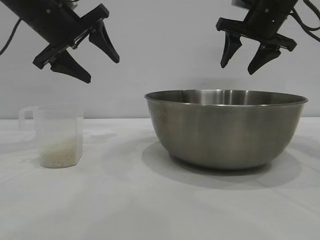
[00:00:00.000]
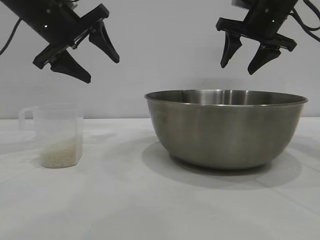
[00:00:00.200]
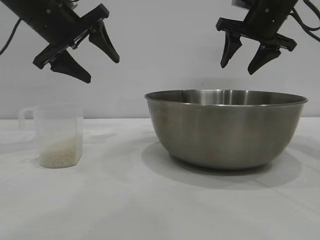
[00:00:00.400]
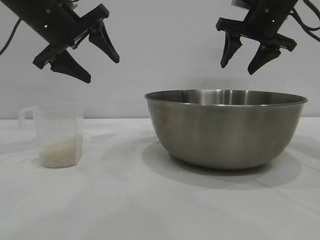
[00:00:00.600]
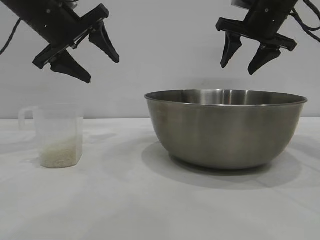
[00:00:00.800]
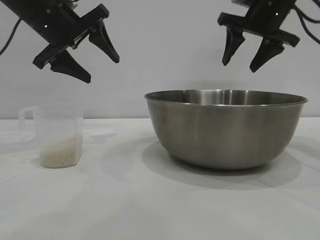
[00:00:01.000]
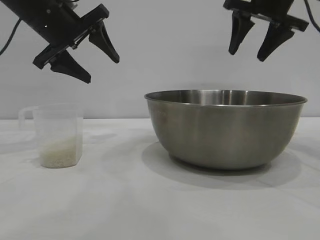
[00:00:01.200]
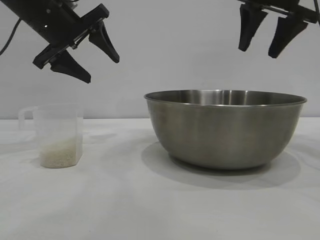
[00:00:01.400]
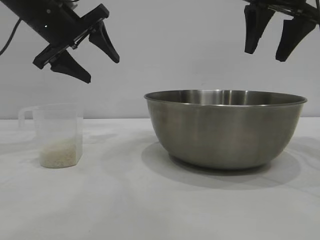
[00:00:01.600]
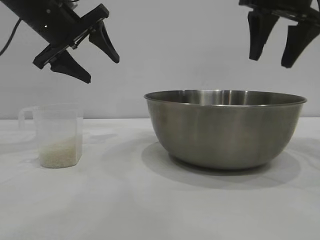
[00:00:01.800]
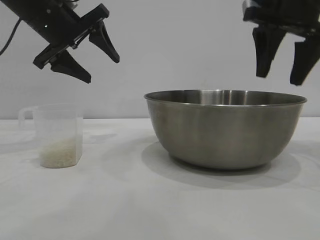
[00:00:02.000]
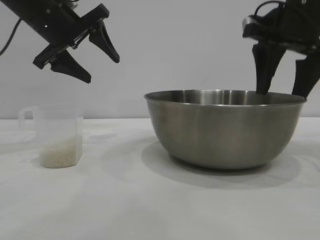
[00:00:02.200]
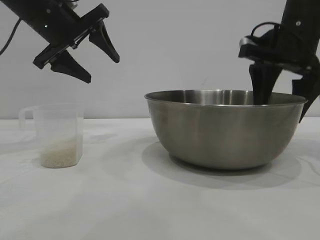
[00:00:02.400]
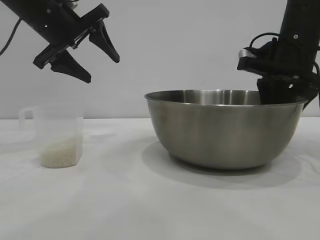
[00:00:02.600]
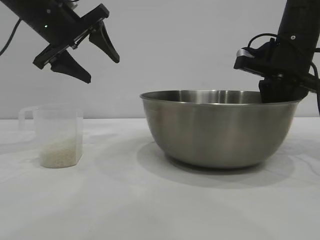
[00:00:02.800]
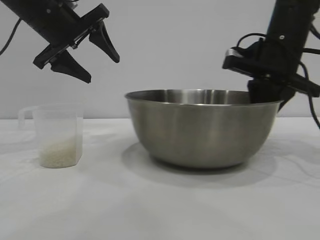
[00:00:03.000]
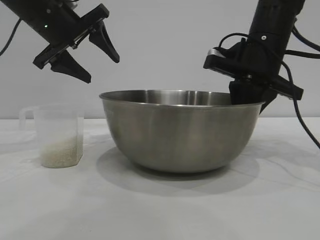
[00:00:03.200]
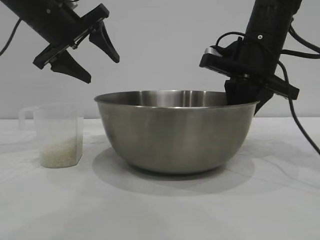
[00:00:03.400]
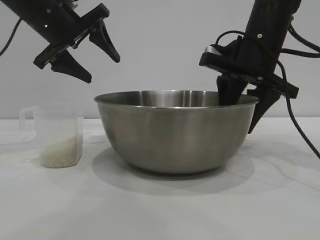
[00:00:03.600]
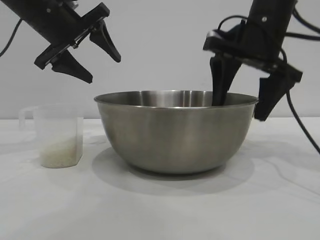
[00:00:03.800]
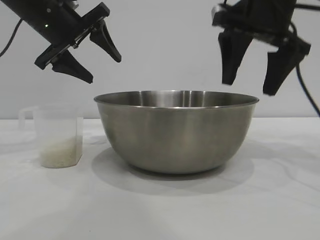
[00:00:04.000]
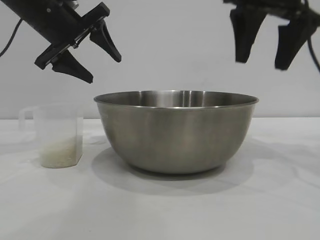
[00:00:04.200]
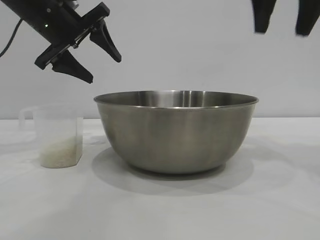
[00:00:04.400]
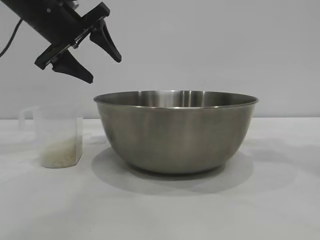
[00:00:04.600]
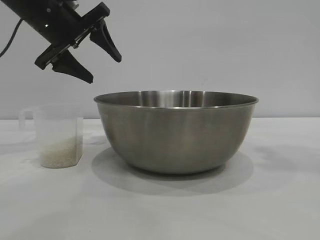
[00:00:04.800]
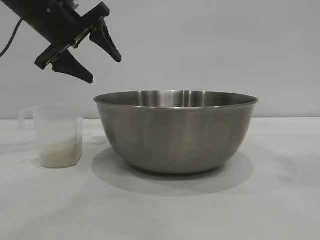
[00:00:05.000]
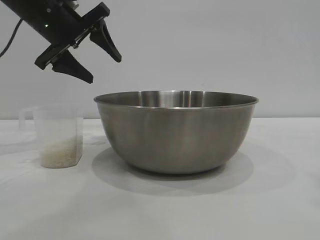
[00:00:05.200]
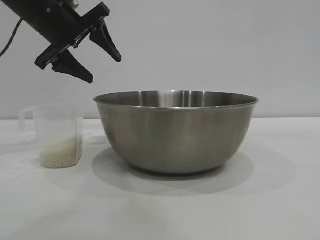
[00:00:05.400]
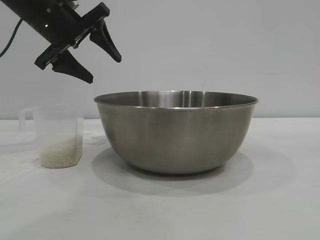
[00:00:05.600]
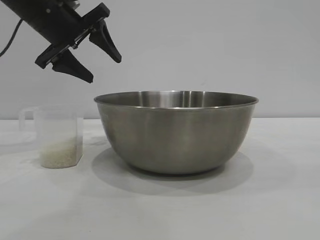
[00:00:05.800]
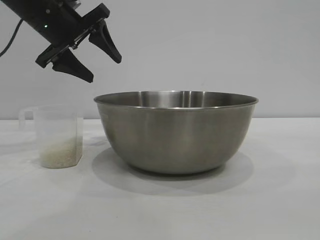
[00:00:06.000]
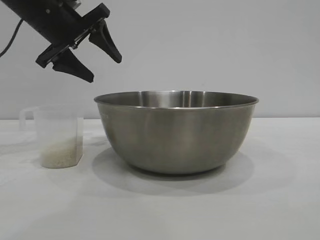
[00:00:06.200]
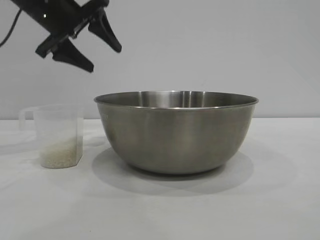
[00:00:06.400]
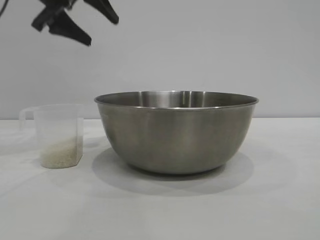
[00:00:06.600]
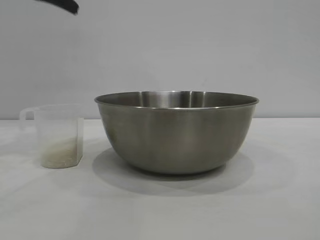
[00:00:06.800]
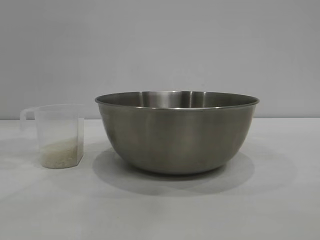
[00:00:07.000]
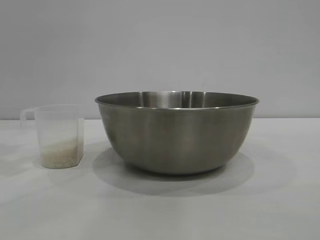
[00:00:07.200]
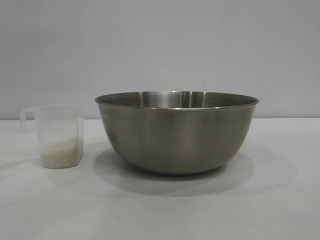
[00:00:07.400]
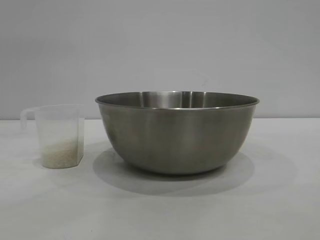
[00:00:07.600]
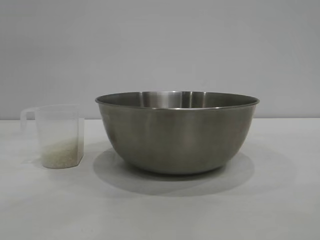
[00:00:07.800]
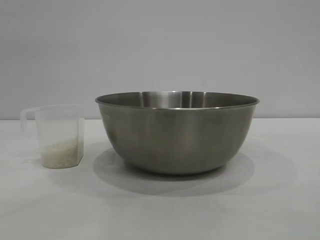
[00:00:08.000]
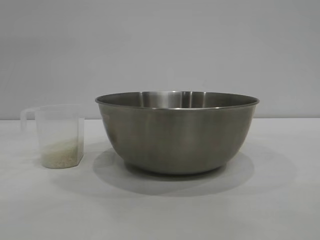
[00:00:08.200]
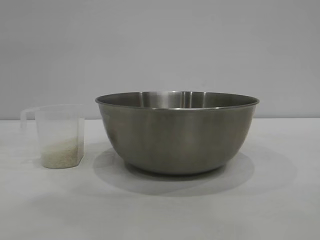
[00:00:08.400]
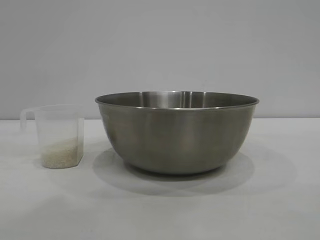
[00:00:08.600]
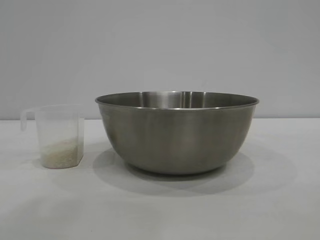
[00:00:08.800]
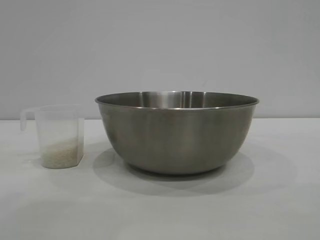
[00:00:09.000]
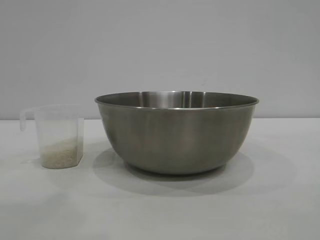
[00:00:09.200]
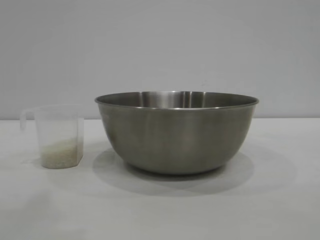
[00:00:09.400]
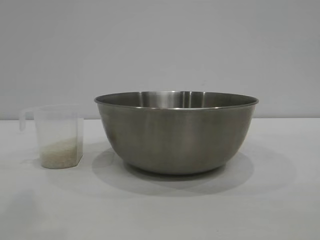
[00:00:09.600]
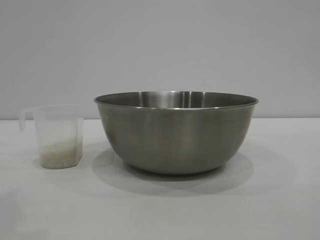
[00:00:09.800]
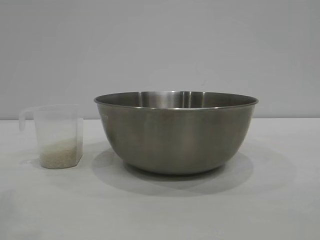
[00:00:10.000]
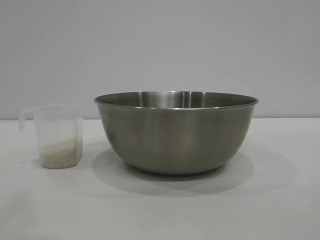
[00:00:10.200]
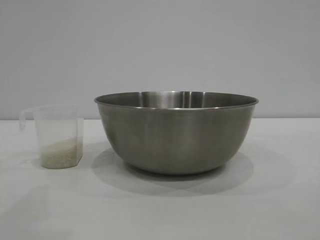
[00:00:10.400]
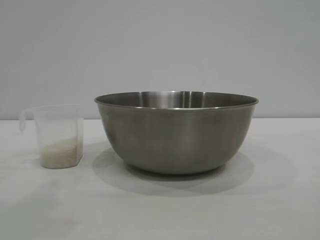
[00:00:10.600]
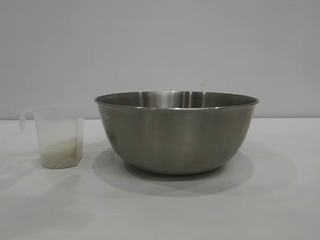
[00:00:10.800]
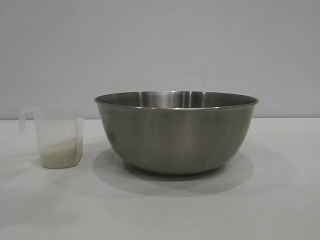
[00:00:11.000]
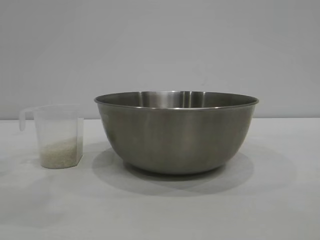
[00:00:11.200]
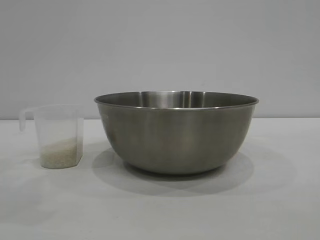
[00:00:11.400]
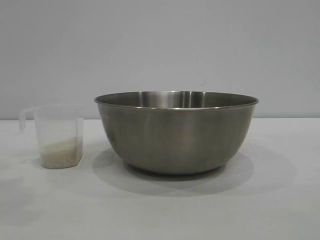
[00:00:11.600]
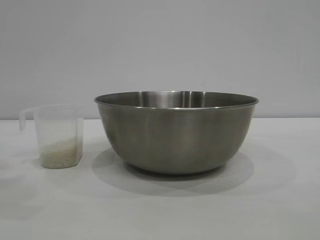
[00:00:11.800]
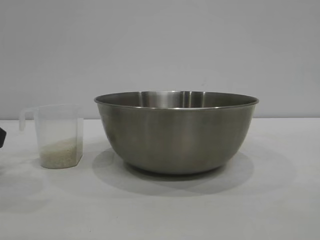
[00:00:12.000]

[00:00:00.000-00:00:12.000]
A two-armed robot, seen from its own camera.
Task of the whole recording: the right gripper grasp the rice container and place it in the center of the table, the left gripper grasp the rice scoop and pour the rice into the rice container.
Step, 00:00:00.000 to 00:00:03.800: Move the bowl to the center of view with the right gripper.

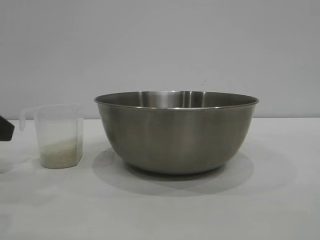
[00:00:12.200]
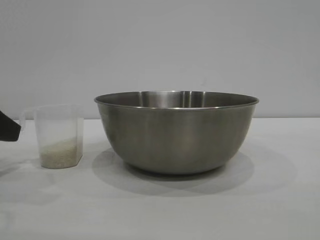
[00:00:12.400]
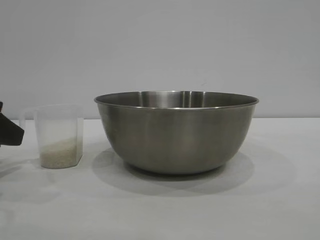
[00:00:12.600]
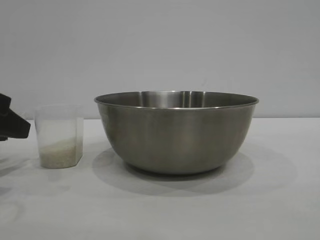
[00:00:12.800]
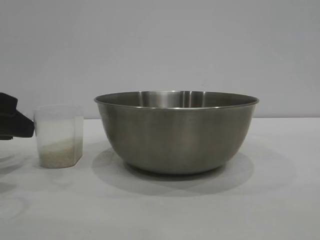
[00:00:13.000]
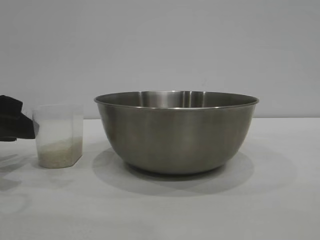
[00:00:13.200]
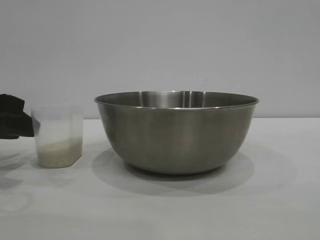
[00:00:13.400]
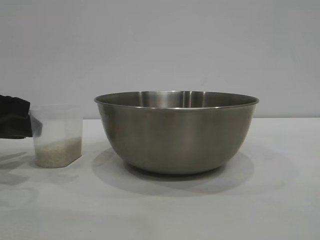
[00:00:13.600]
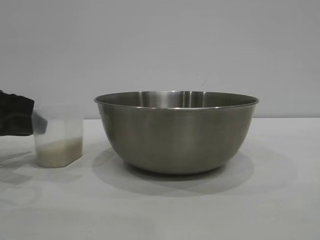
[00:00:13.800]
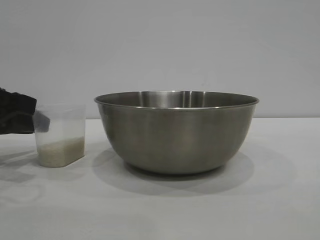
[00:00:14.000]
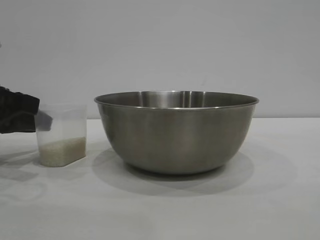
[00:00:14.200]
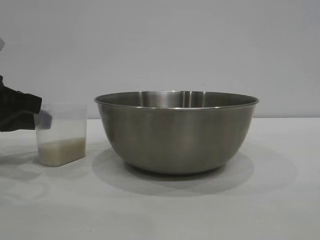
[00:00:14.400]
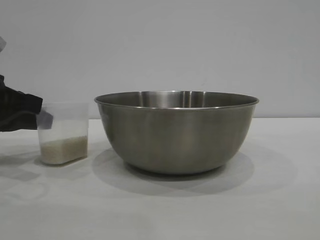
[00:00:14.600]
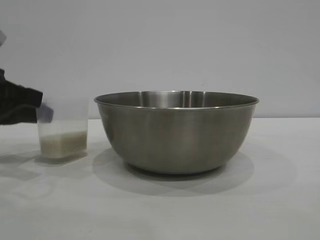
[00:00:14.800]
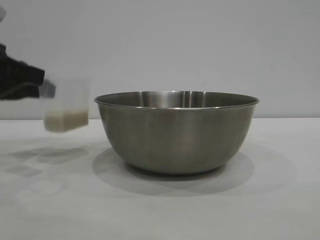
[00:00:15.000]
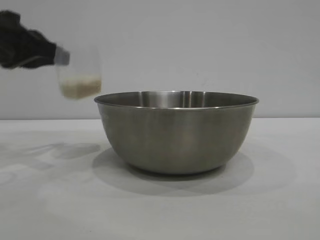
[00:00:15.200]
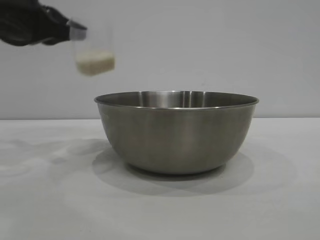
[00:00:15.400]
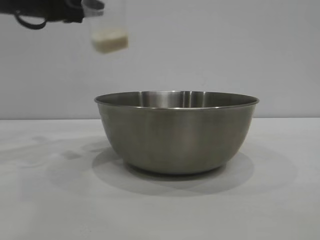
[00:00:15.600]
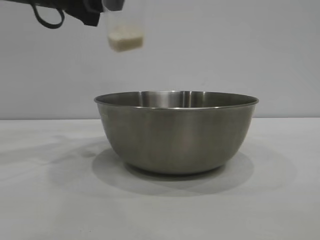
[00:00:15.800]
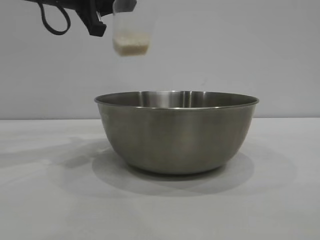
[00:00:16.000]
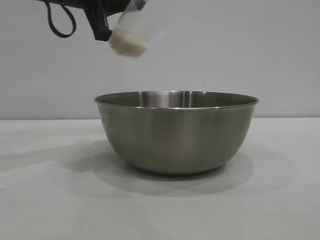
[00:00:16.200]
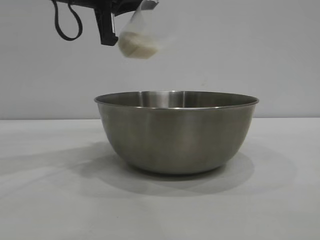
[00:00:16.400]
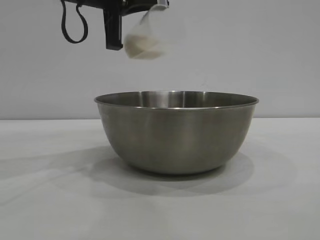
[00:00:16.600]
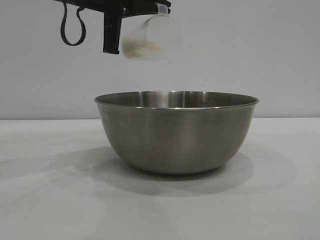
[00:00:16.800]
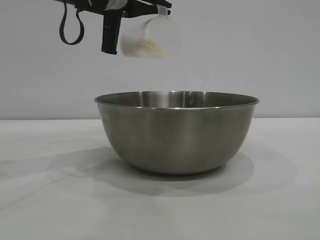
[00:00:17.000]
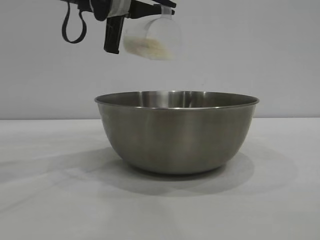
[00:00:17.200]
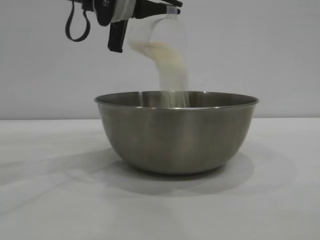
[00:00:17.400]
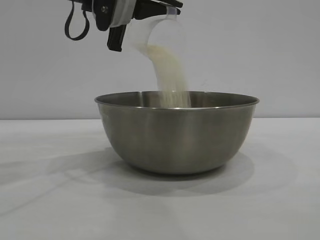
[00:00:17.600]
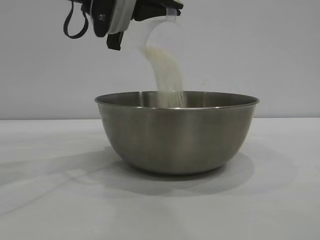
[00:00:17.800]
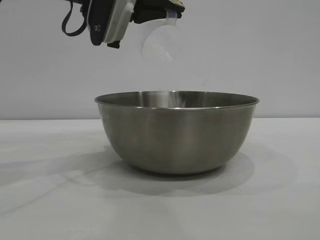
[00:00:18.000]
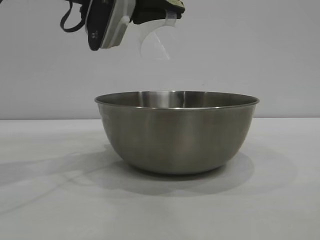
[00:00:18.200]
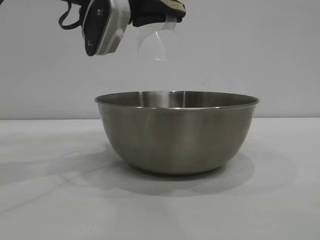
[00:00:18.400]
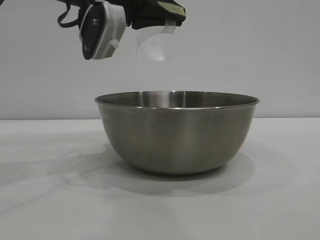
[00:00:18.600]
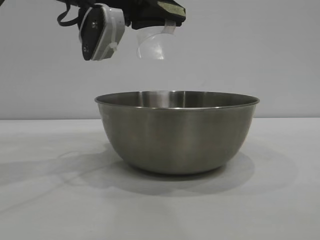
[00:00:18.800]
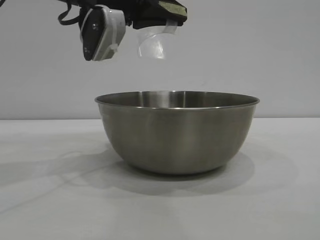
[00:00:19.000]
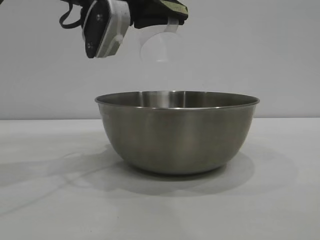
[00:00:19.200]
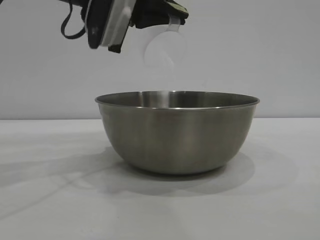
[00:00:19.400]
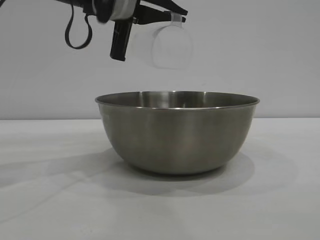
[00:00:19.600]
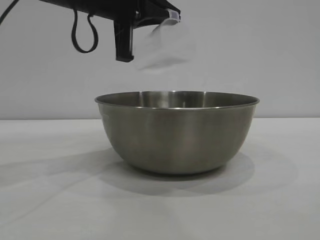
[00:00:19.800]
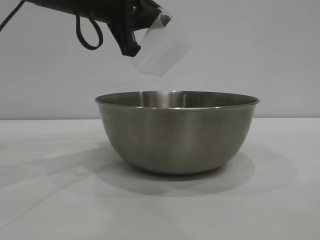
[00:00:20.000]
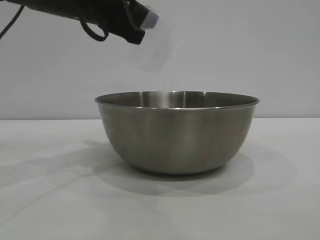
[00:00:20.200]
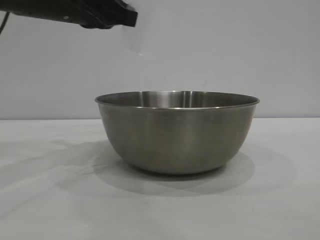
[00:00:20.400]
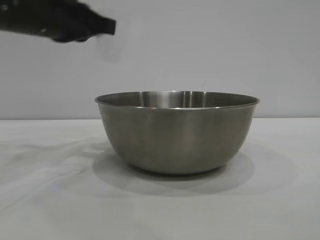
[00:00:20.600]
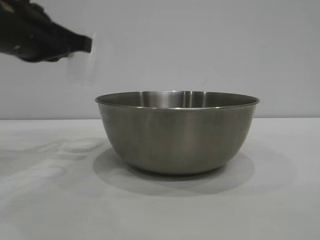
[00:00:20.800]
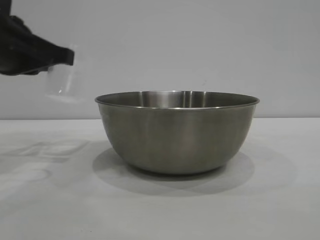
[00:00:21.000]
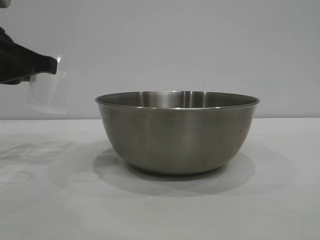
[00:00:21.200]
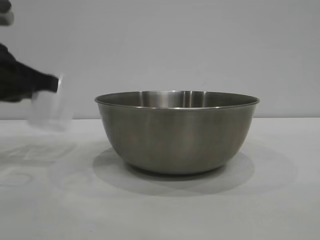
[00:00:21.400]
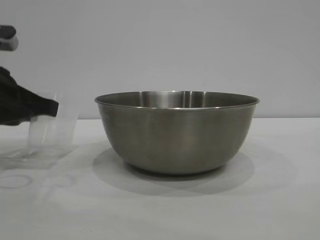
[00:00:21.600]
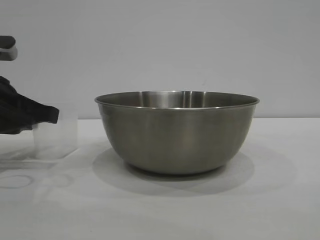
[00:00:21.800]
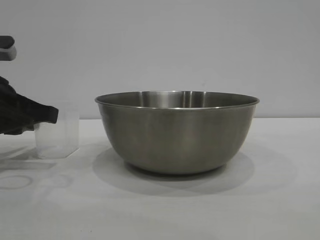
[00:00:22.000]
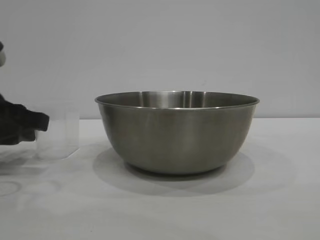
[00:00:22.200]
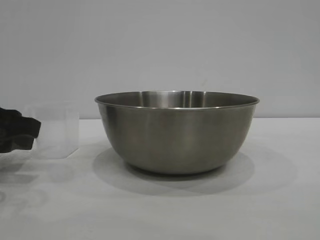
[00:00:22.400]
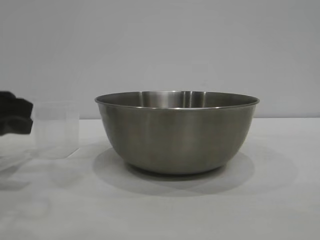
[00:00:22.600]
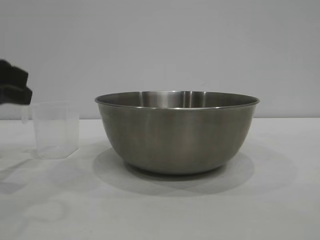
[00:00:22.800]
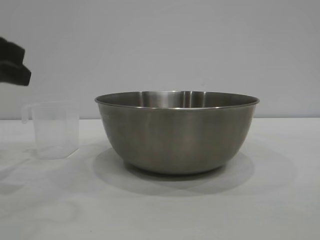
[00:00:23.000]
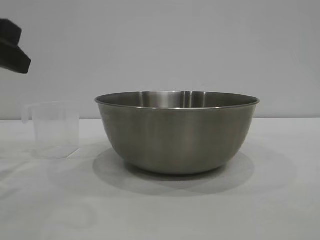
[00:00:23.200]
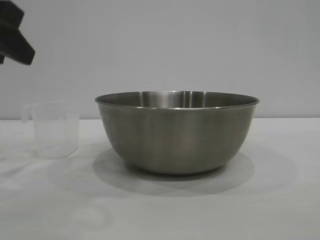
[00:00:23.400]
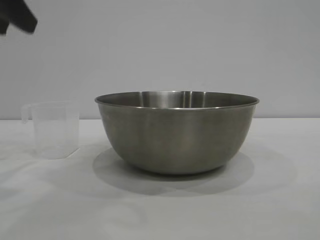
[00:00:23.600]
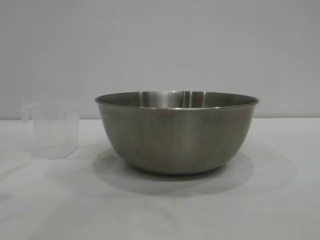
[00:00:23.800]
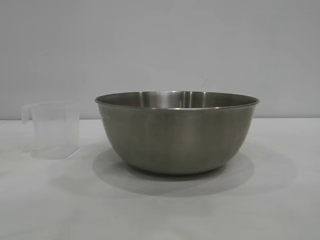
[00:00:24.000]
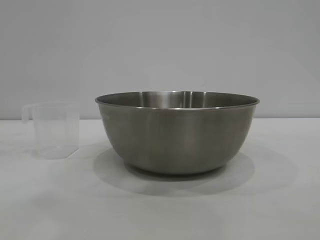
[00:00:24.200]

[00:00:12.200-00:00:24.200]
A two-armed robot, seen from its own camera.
Task of the whole recording: the right gripper grasp the rice container and place it in the center of the table, the left gripper grasp the rice scoop and pour the rice into the rice container.
Step, 00:00:12.200 to 00:00:14.800: Pick up the cup with rice in it with the left gripper.
Step, 00:00:15.000 to 00:00:19.400: Pour the rice from the cup into the bowl with the left gripper.
Step, 00:00:19.600 to 00:00:22.600: Place the cup on the table with the left gripper.
